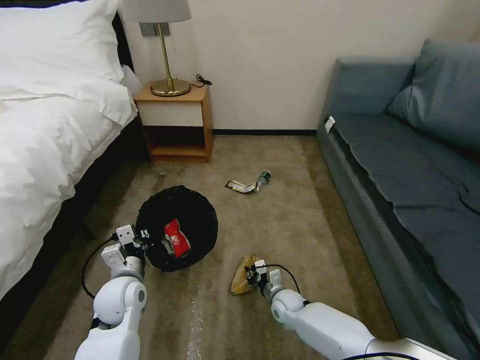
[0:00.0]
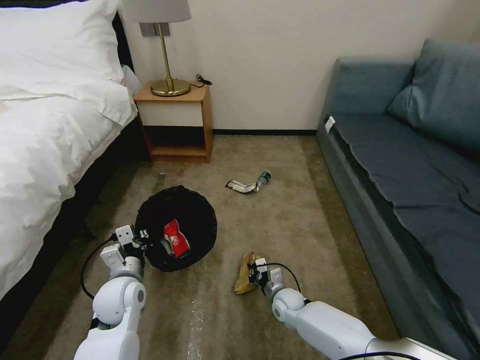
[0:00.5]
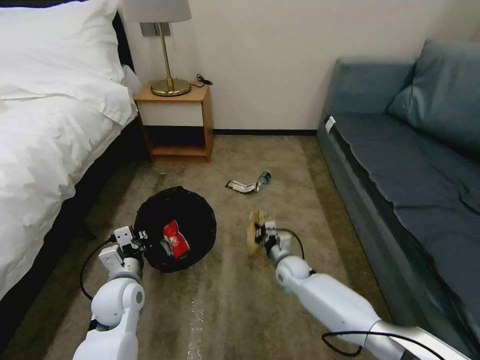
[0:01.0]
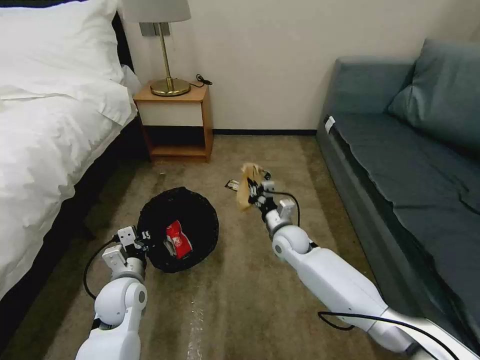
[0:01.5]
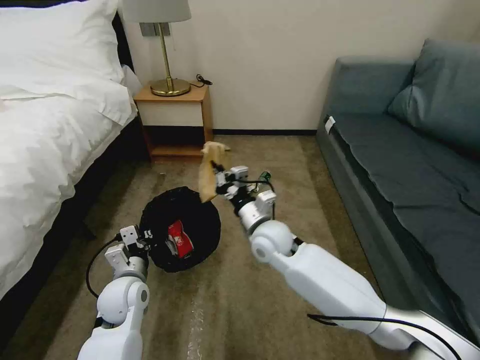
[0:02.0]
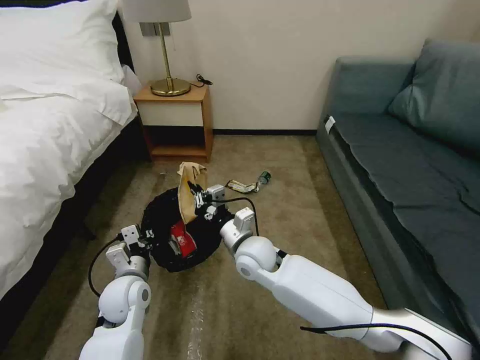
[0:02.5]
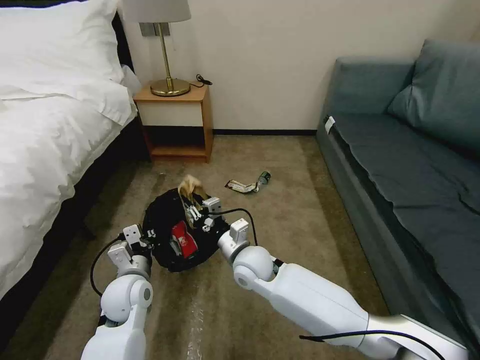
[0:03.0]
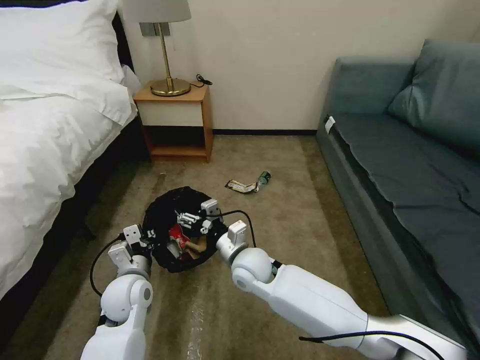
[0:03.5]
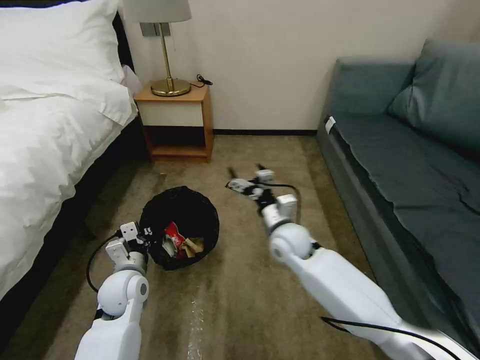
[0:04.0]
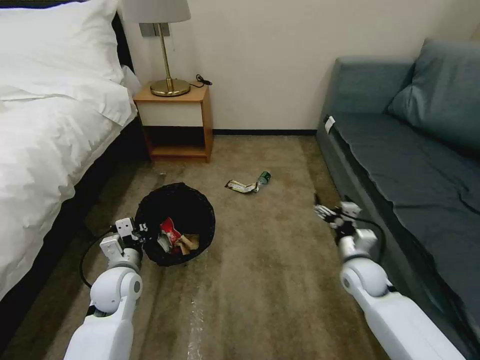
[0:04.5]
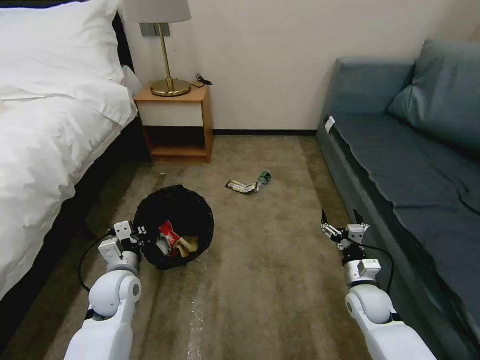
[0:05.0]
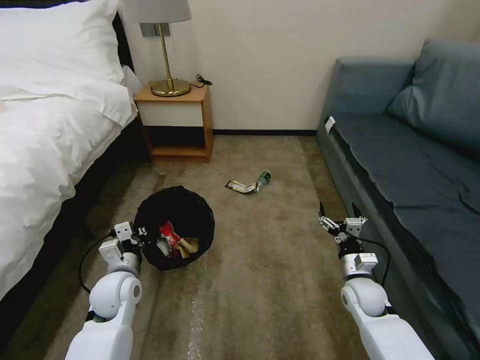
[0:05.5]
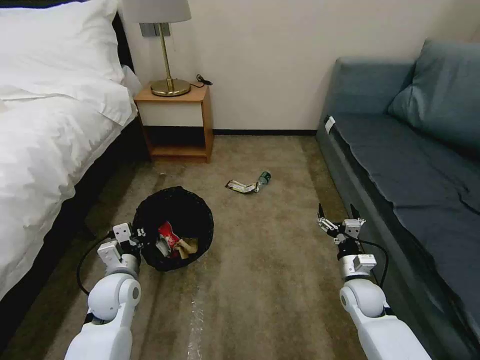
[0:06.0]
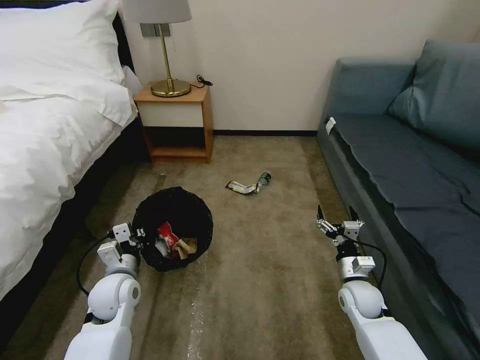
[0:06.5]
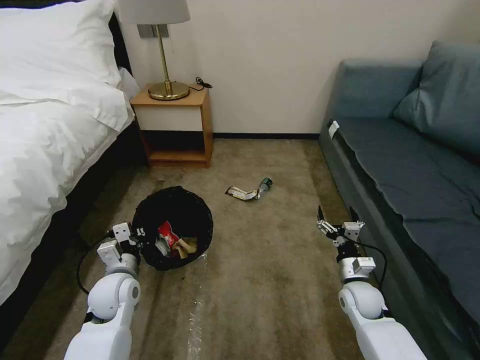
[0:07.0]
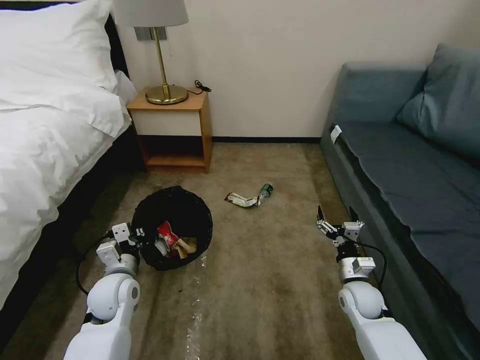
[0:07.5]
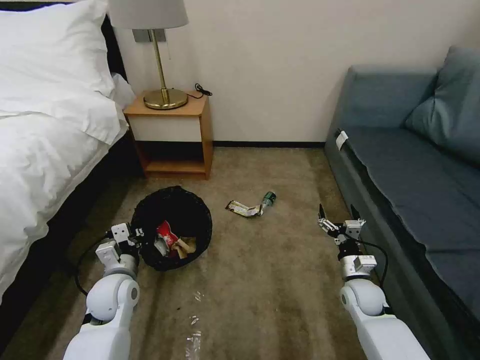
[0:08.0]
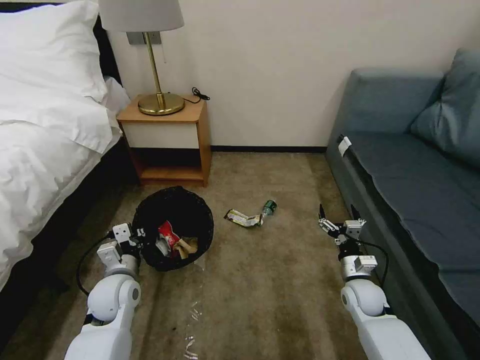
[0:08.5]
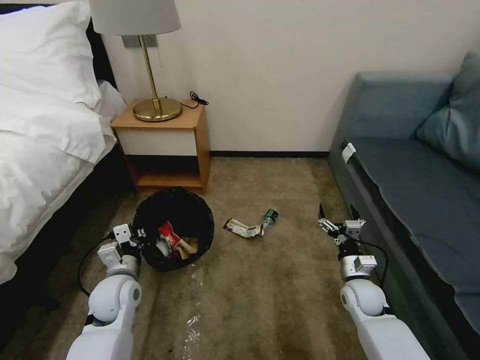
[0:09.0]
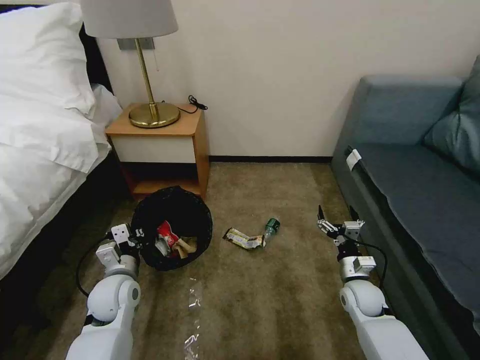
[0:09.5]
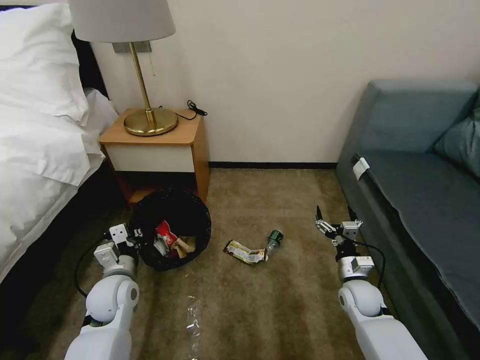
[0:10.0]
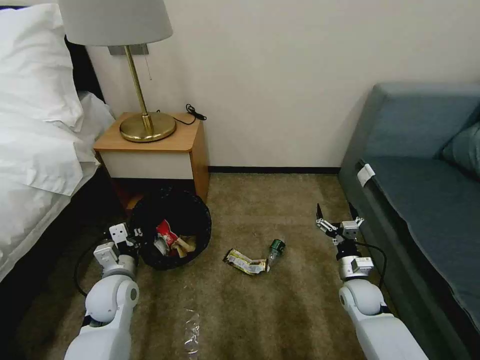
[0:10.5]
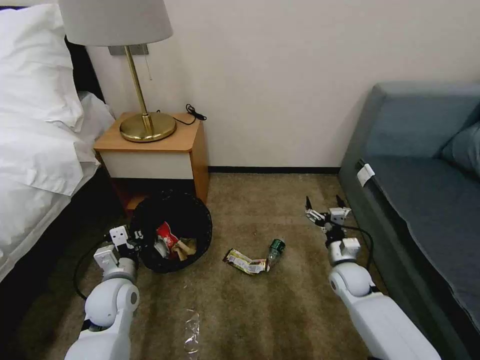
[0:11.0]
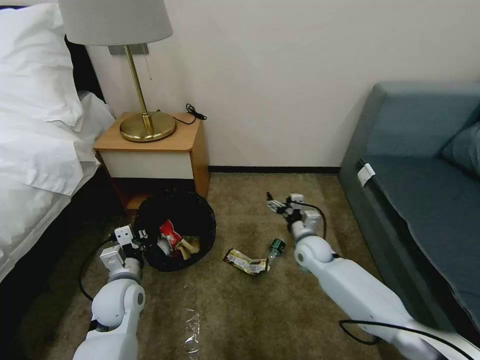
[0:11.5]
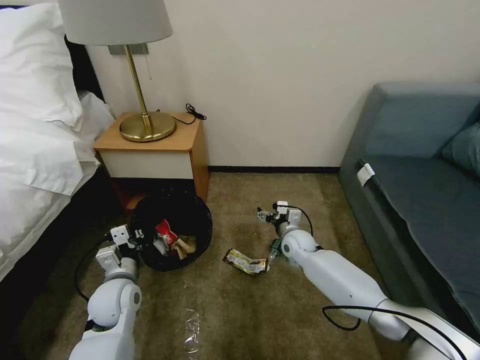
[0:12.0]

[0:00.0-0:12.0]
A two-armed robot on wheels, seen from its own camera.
Task of the whole recording: Pick up the trash bin, then pick up the garbage on the floor and place it into the trash bin.
0.0 to 2.0 s: The right gripper goes about 25 cm upward.
2.0 to 4.0 s: The right gripper shifts some 5 cm to the right, and opens up.
4.0 to 6.0 s: The right gripper goes approximately 25 cm to the right, downward and backward.
6.0 to 8.0 s: The grippers make only small movements.
10.0 to 12.0 s: The right gripper heads forward and to the left, covering some 20 cm.

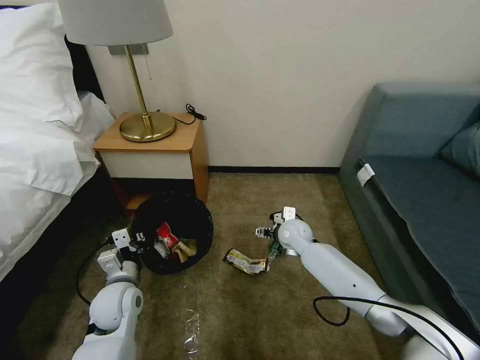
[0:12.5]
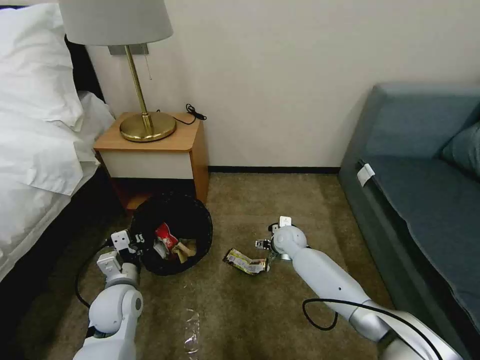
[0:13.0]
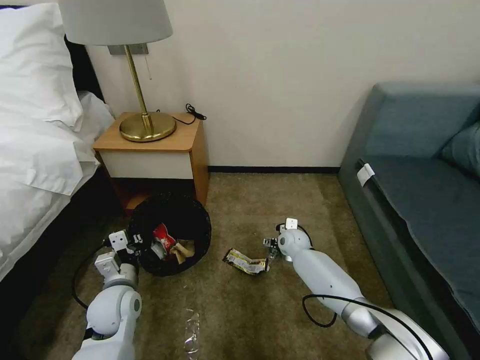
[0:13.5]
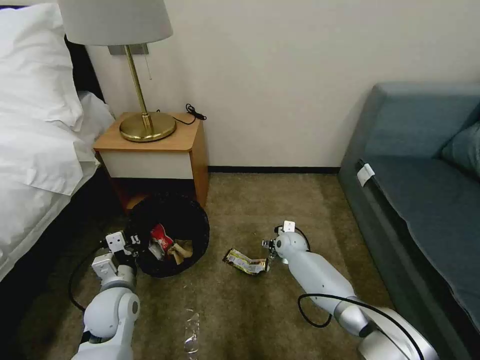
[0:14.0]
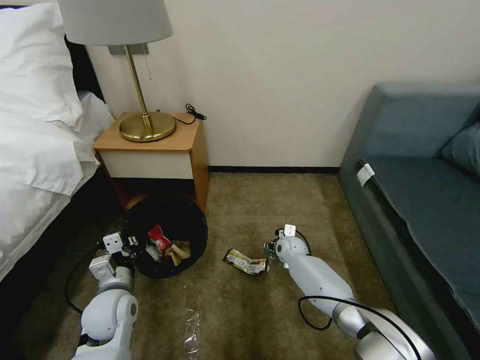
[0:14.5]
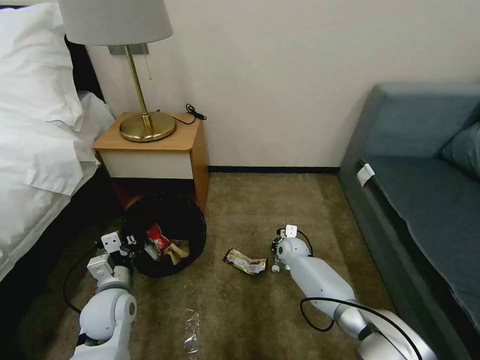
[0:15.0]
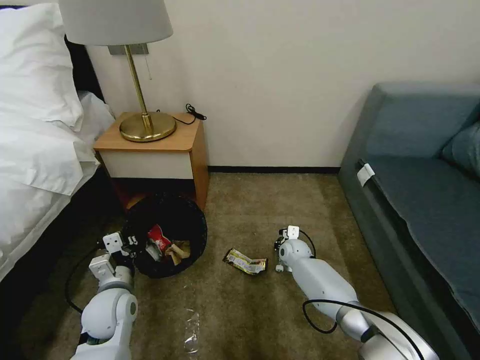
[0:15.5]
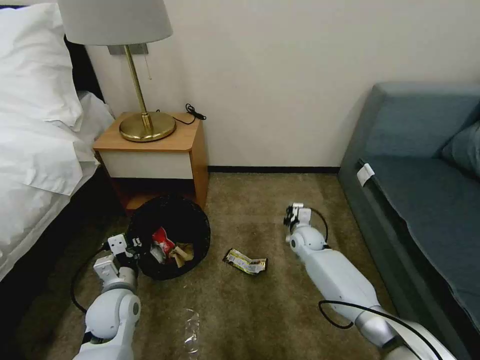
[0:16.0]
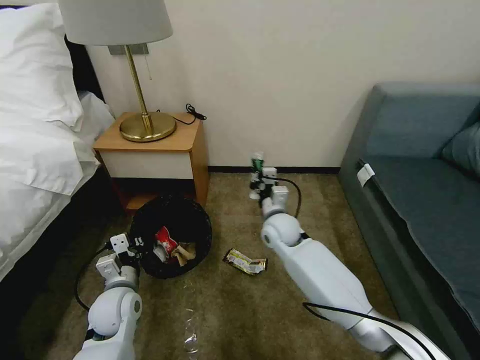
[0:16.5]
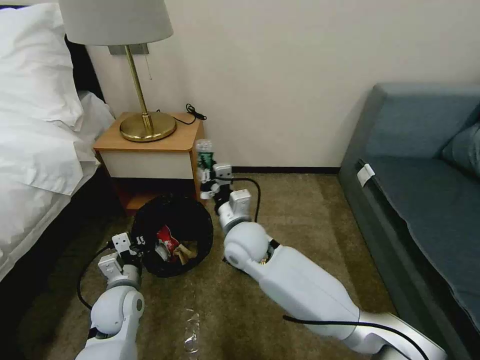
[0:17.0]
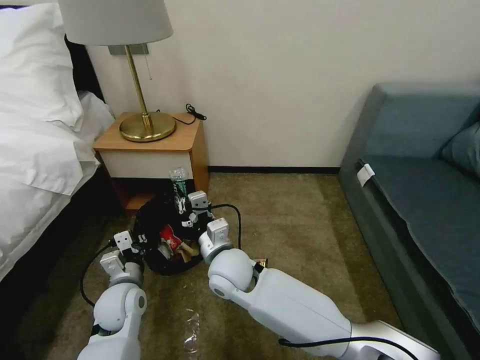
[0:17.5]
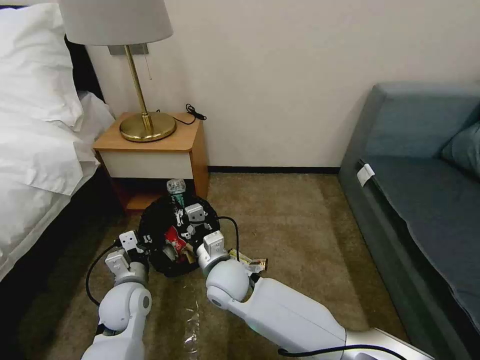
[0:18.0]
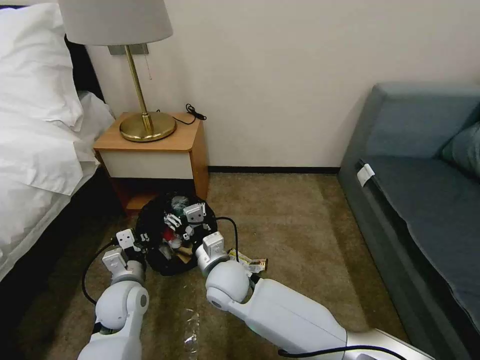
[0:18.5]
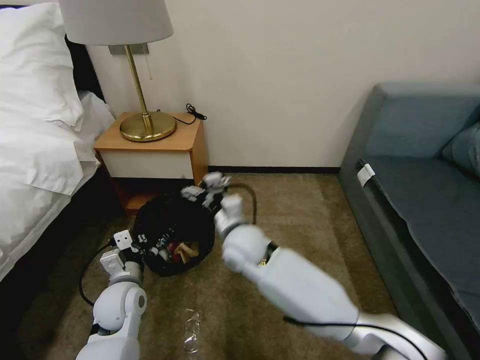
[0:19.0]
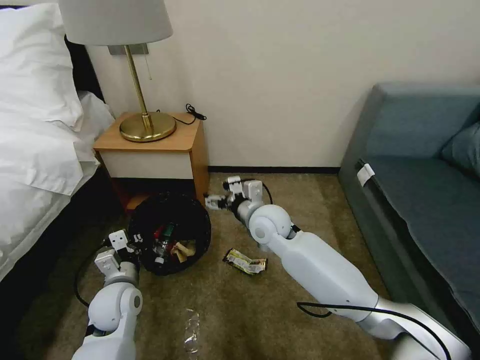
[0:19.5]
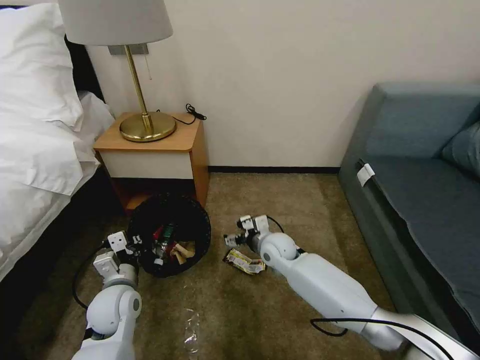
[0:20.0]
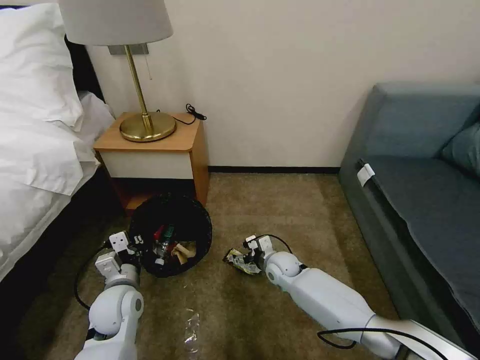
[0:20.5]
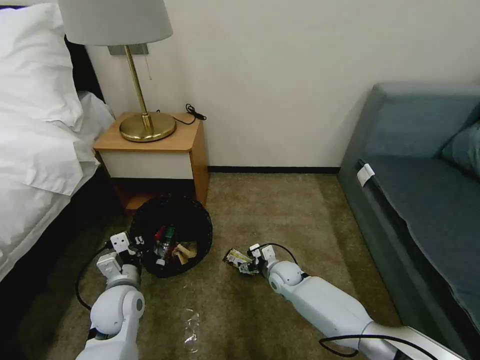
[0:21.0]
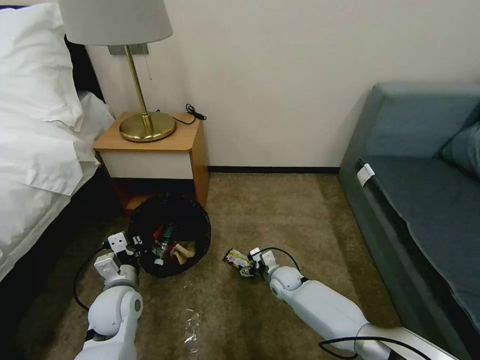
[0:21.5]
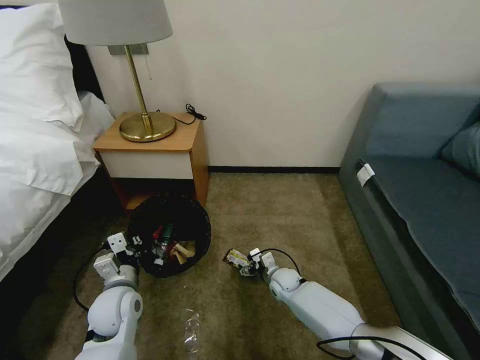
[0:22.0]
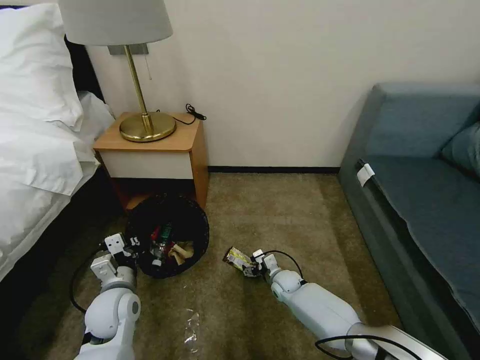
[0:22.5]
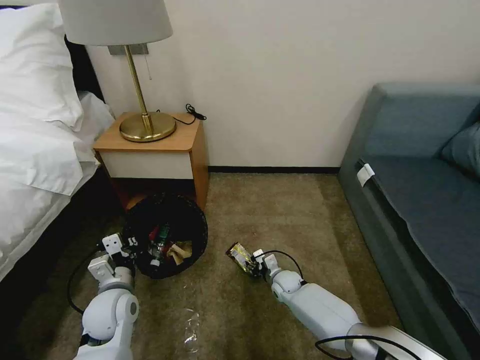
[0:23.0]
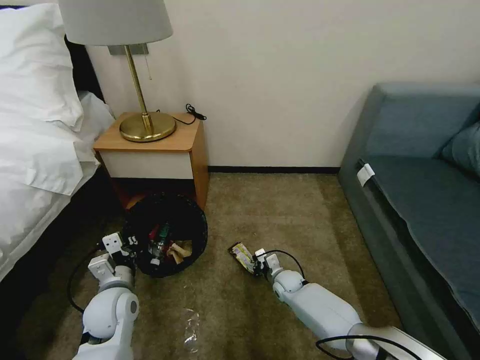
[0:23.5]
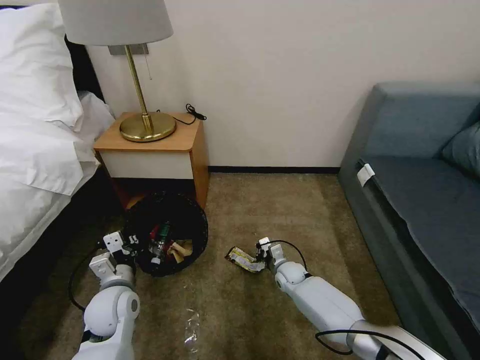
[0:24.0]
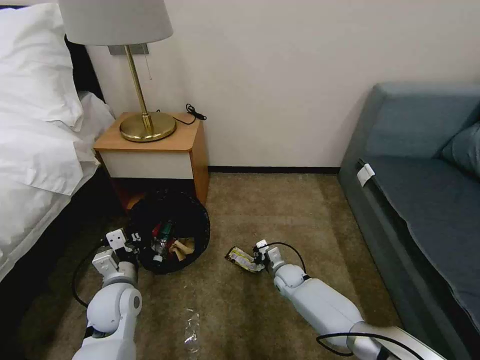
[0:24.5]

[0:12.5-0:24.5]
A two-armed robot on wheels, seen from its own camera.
Task of the whole recording: Pick up the trash bin, then pick up the garbage on the floor and place it into the trash bin.
12.5 to 14.5 s: The right gripper is displaced downward by roughly 10 cm.
14.5 to 16.5 s: The right gripper travels upward by about 15 cm, and closes up.
16.5 to 18.5 s: The right gripper shifts about 20 cm to the left and backward, and opens.
18.5 to 20.5 s: The right gripper shifts roughly 25 cm to the right, downward and forward.
20.5 to 22.5 s: The right gripper moves downward, roughly 10 cm.
22.5 to 24.5 s: The right gripper closes.

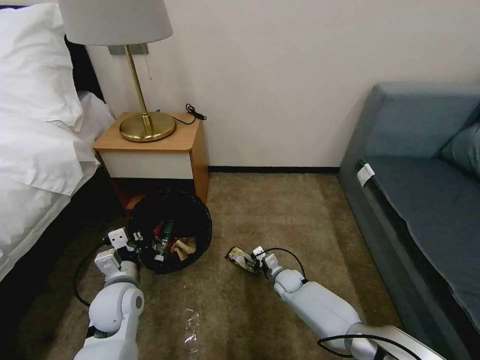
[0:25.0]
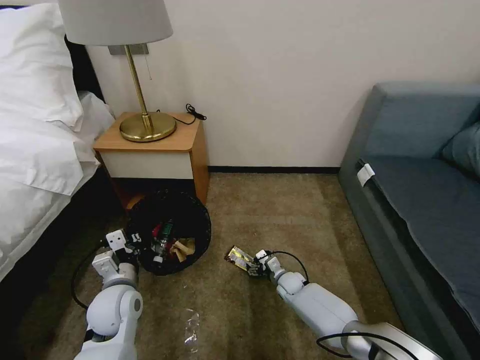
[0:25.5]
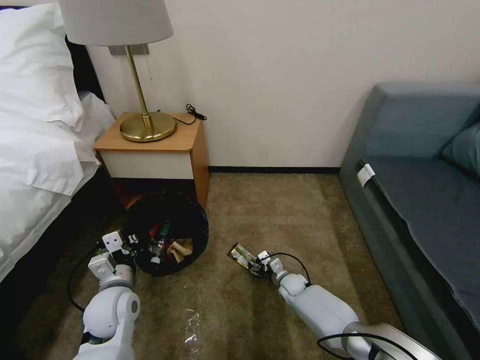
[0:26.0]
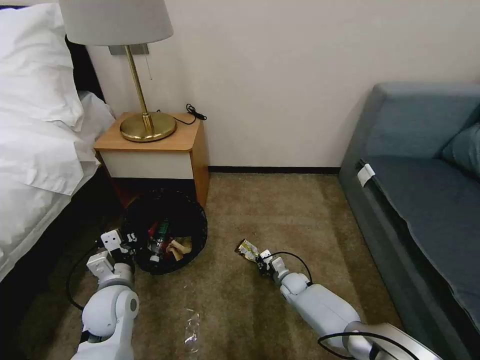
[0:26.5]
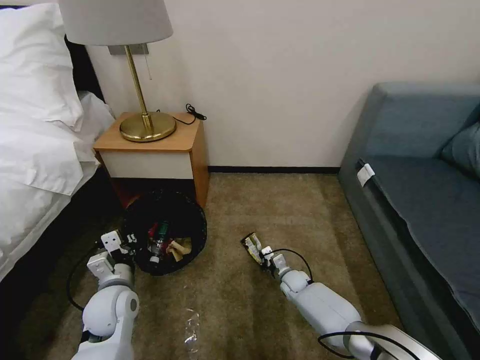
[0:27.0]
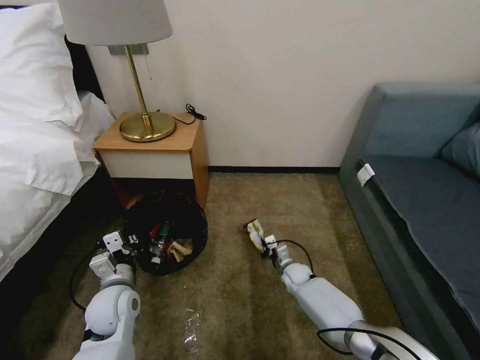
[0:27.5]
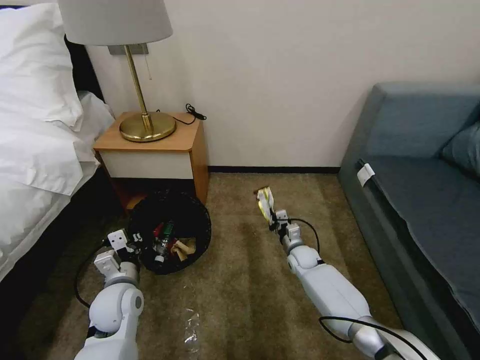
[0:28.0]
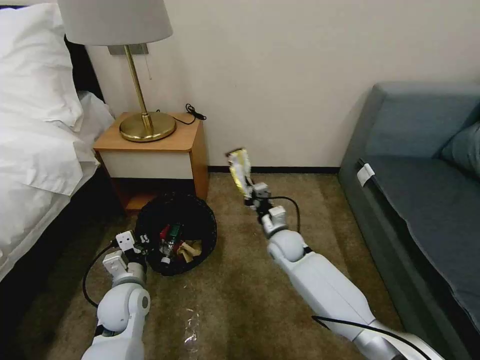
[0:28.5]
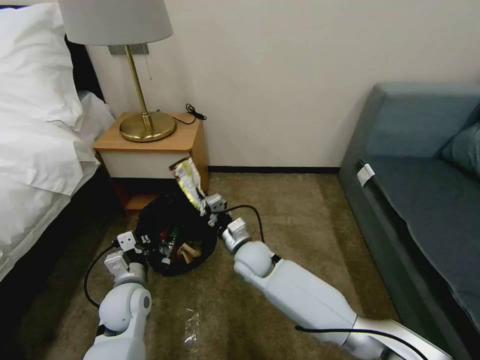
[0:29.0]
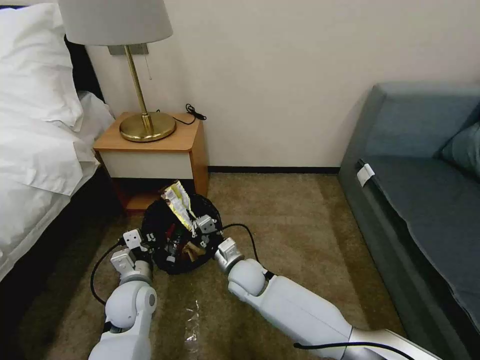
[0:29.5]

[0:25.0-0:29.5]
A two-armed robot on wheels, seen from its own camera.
Task of the whole recording: Pick up the trash bin, then pick up the garbage on the floor and place it into the trash bin.
25.0 to 27.0 s: The right gripper closes its fingers.
27.0 to 29.5 s: The right gripper heads upward and to the left, covering roughly 25 cm.
